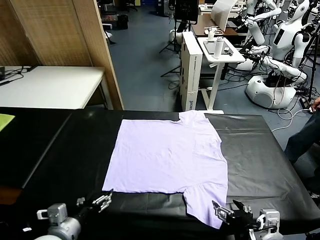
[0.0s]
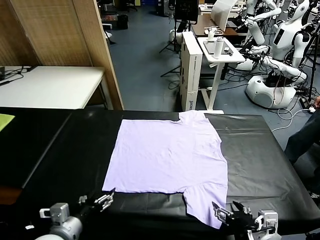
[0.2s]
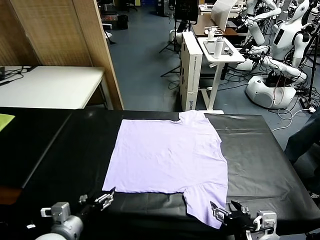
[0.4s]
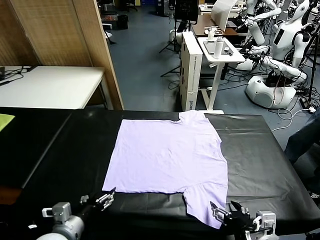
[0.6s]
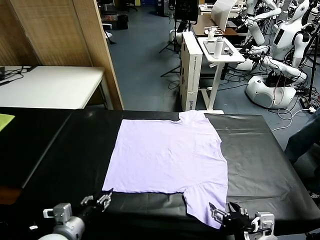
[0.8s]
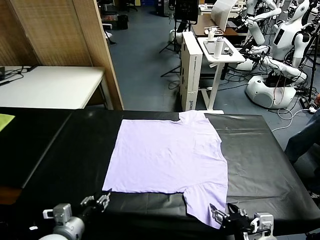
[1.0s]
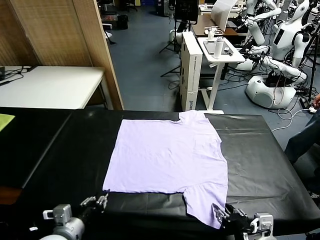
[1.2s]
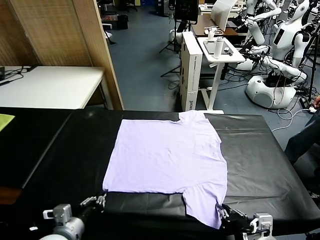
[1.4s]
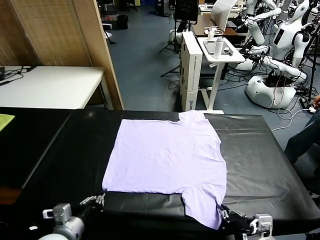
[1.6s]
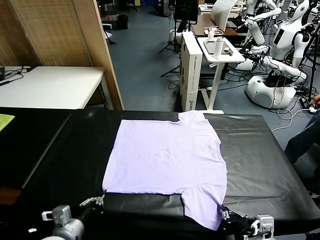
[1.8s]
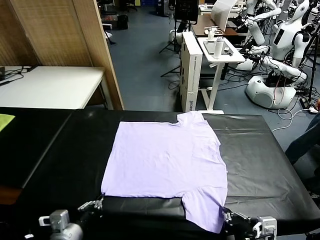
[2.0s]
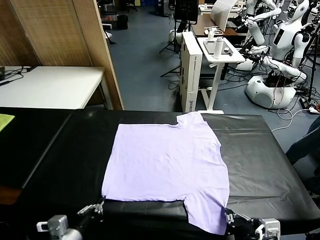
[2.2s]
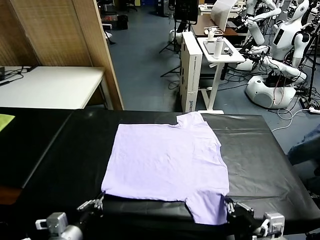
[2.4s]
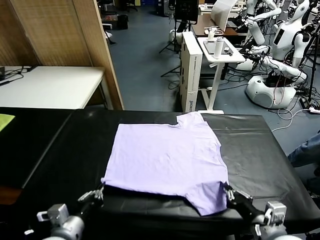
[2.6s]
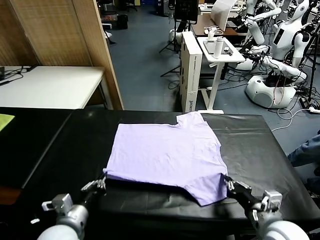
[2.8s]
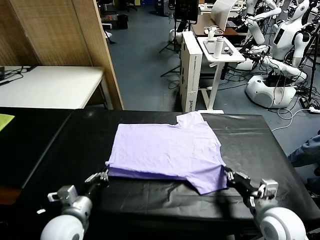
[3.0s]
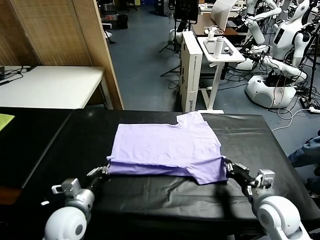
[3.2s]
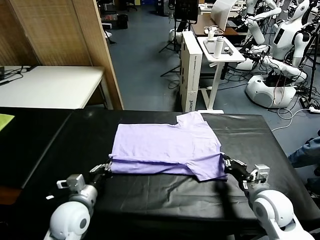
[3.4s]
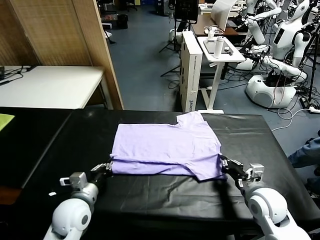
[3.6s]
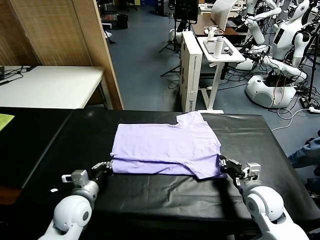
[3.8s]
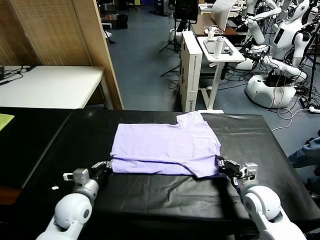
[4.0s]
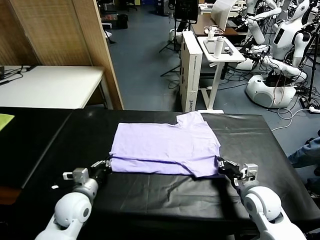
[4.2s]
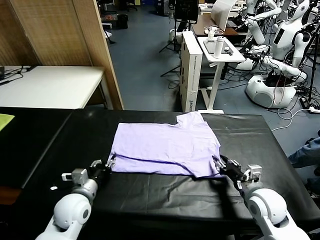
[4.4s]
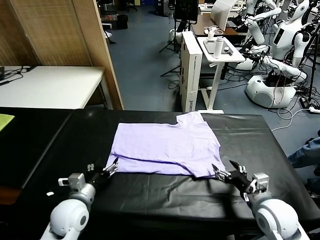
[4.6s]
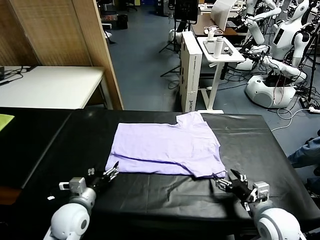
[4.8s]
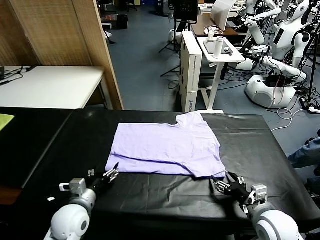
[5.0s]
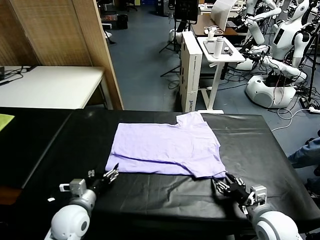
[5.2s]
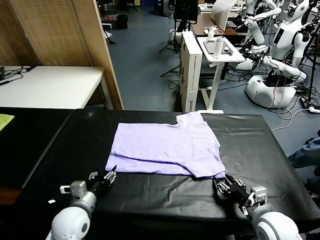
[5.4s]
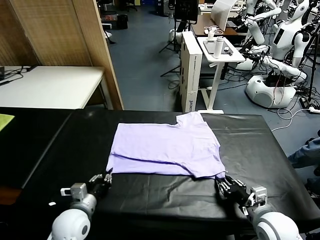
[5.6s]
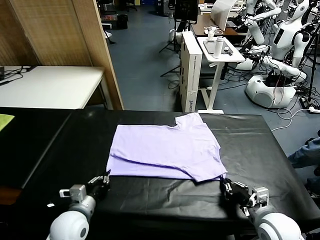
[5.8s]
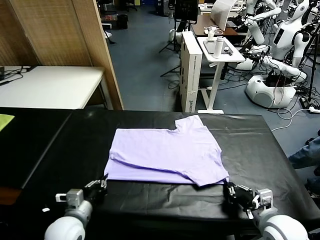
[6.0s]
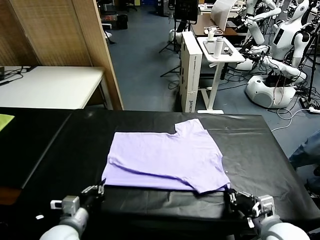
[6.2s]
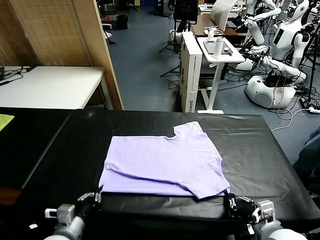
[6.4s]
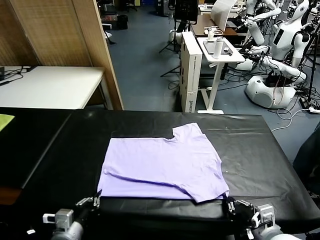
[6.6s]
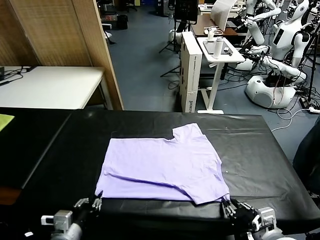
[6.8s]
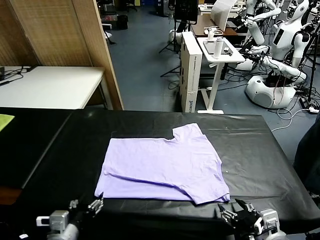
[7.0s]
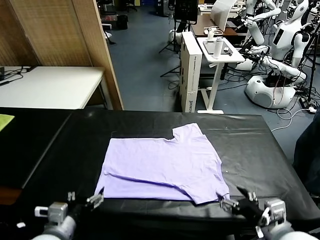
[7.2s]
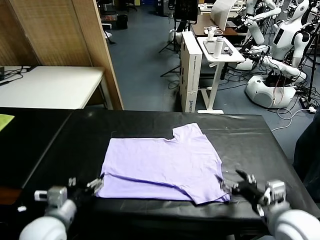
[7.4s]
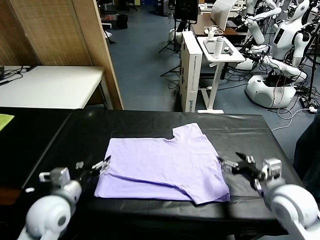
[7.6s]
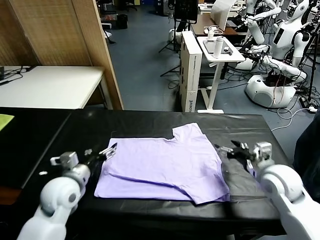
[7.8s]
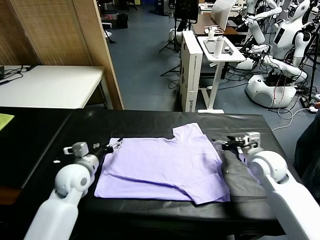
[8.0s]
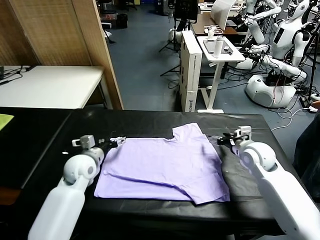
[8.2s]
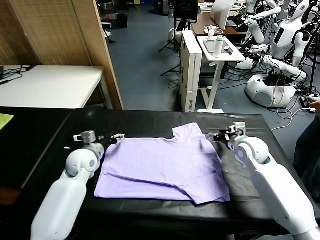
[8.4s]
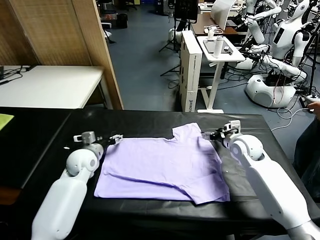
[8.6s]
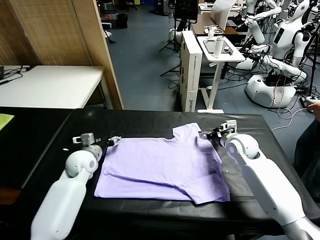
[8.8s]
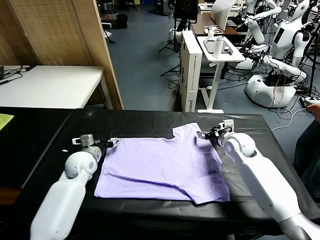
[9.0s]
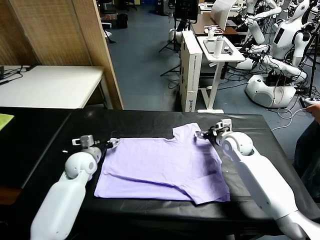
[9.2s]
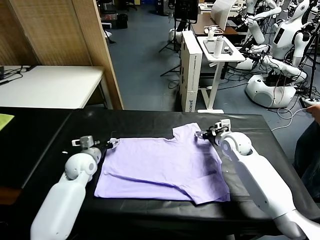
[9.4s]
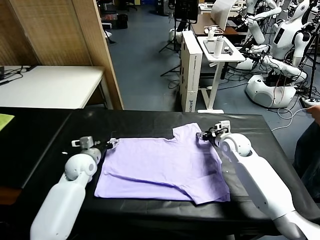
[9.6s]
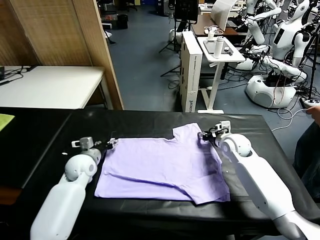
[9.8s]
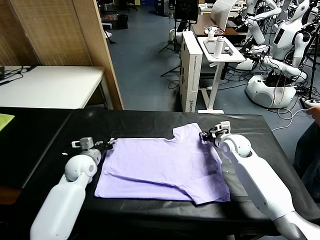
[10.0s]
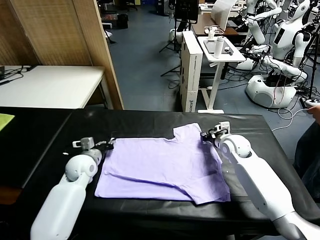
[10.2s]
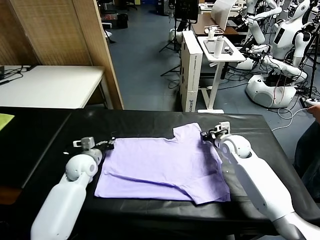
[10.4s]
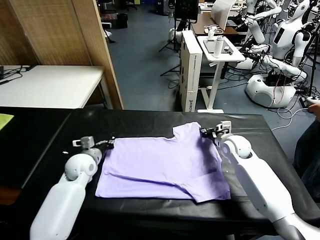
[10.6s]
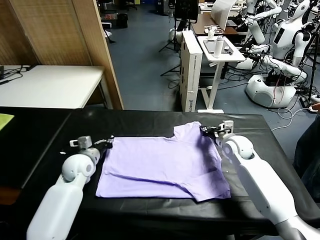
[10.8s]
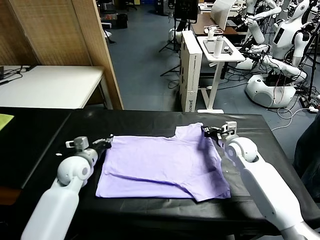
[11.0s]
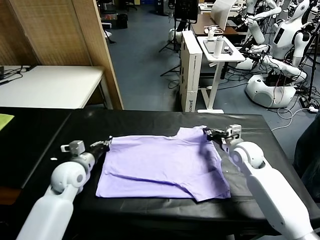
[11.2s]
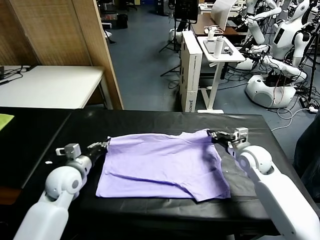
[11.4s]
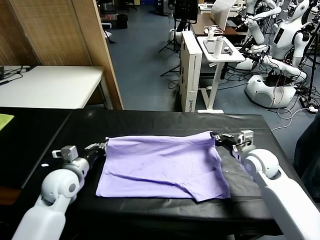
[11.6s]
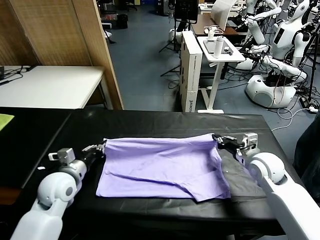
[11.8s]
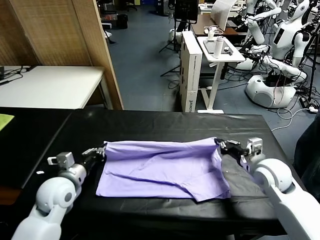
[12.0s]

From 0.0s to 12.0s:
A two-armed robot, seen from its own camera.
Task of the whole recording: fold and organize the clothes.
Step, from 0.0s to 1.8s: use both grippers simultaneously to clamp the lower edge of the clothing fabric.
Step, from 2.0s to 4.4s: use both grippers to drag the lower edge of the fabric forward and fold it over the upper edge.
Step, from 4.6s to 7.0s: Drag the clothes downward with both gripper.
Step, from 7.2s to 10.4s: use both grippers simultaneously to clamp the upper edge of the clothing fabric.
From 1.6s to 3.0s: The left gripper is displaced forward by approximately 5 cm; the right gripper shifts roughly 15 cm forward.
From 3.0s to 4.4s: The left gripper shifts about 5 cm forward, and opens up. Meanwhile the right gripper opens its fingers.
From 4.4s to 6.0s: The two grippers go roughly 5 cm backward. The left gripper closes its fingers. Meanwhile the right gripper closes its fingers.
From 6.0s to 7.6s: The left gripper goes approximately 10 cm upward, goes backward and returns, approximately 5 cm each way, and opens. Meanwhile the right gripper heads forward and upward, covering approximately 10 cm, and opens up.
From 7.6s to 9.0s: The grippers both shift forward by approximately 20 cm.
From 9.0s to 10.4s: The right gripper closes up. Meanwhile the left gripper closes.
From 10.4s to 12.0s: The right gripper is displaced backward by roughly 15 cm. The left gripper is displaced backward and upward by about 15 cm.

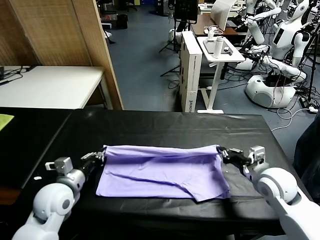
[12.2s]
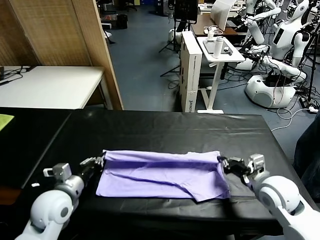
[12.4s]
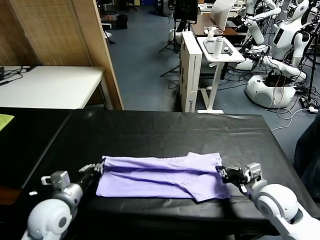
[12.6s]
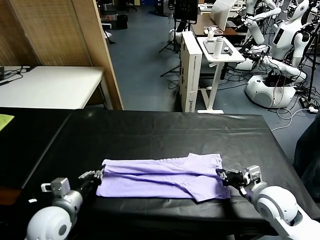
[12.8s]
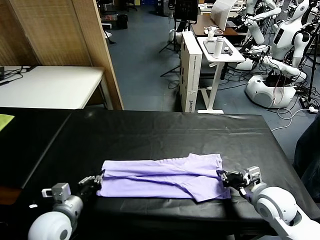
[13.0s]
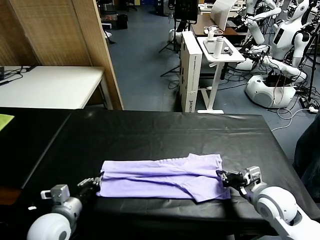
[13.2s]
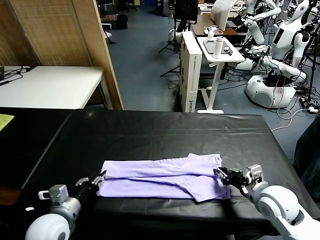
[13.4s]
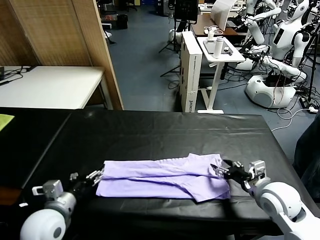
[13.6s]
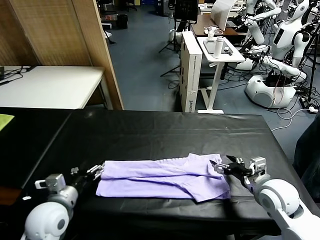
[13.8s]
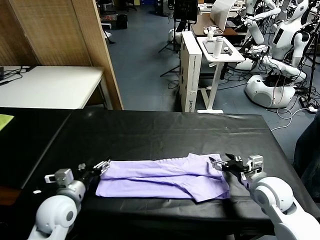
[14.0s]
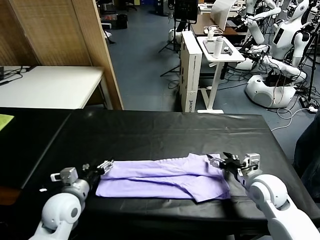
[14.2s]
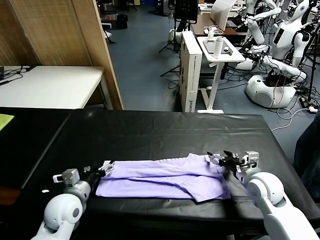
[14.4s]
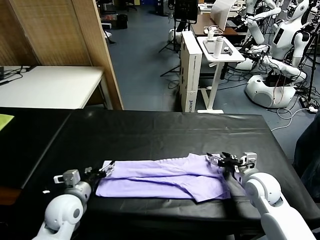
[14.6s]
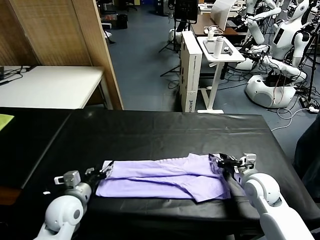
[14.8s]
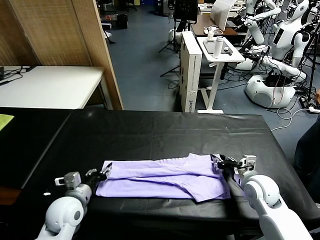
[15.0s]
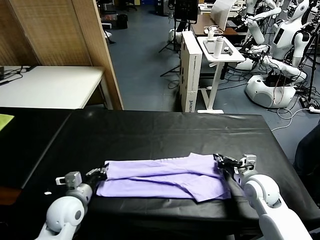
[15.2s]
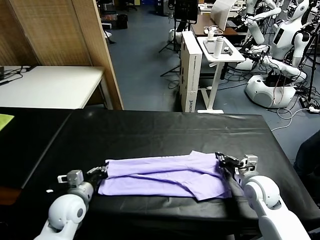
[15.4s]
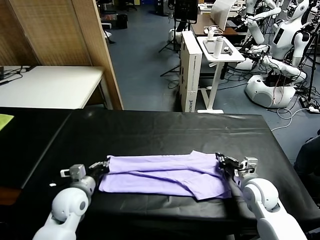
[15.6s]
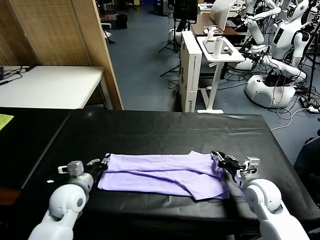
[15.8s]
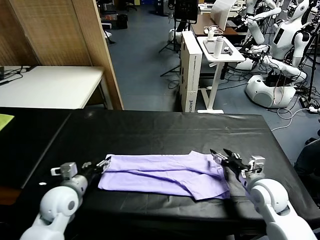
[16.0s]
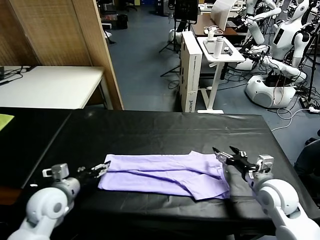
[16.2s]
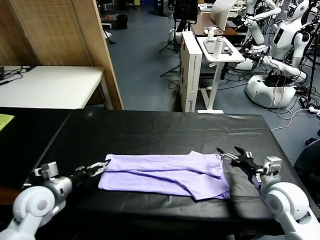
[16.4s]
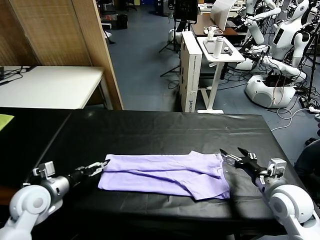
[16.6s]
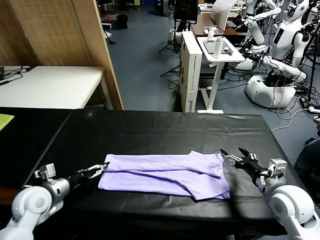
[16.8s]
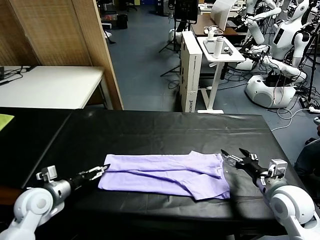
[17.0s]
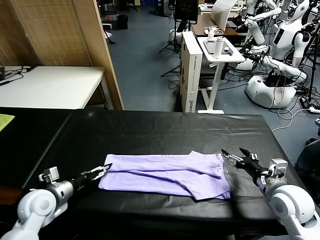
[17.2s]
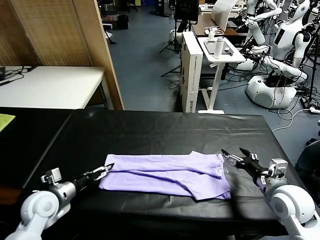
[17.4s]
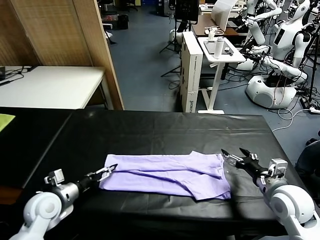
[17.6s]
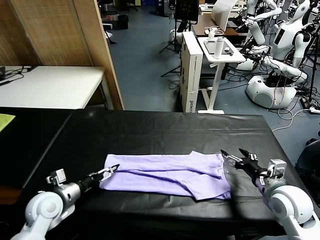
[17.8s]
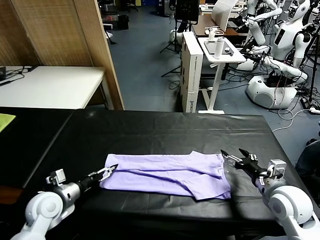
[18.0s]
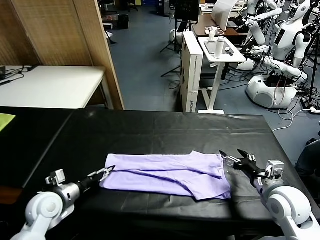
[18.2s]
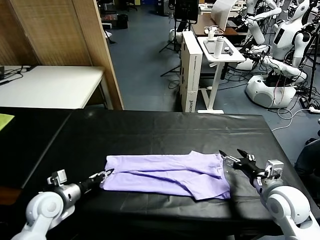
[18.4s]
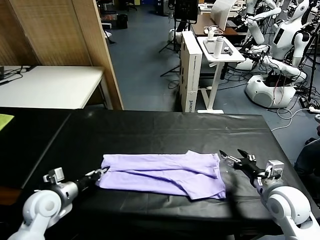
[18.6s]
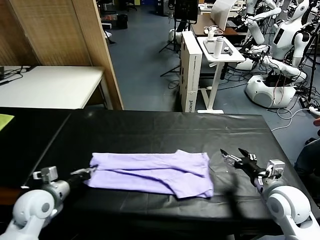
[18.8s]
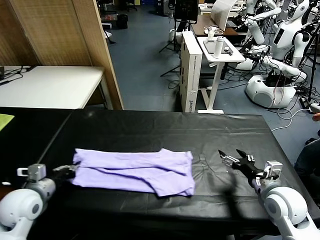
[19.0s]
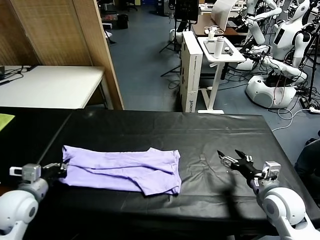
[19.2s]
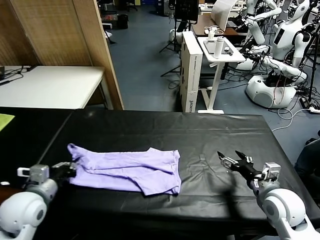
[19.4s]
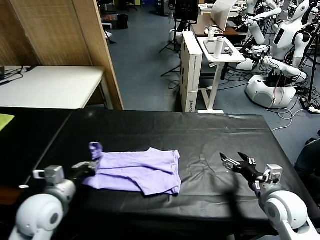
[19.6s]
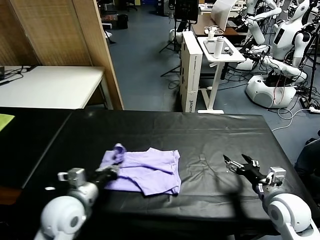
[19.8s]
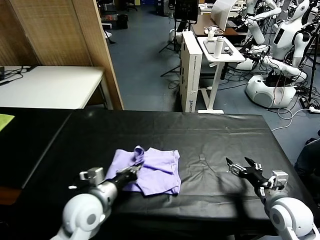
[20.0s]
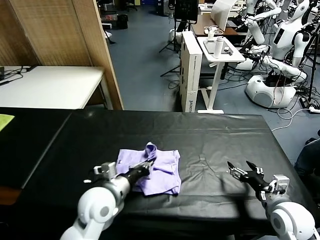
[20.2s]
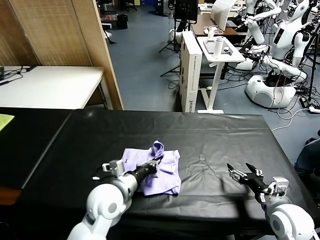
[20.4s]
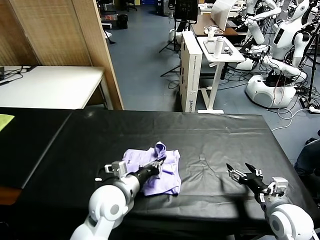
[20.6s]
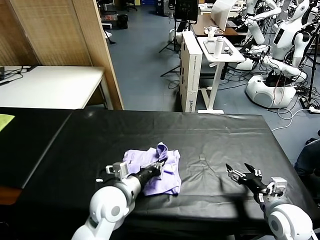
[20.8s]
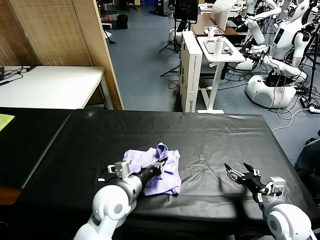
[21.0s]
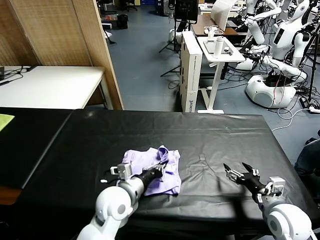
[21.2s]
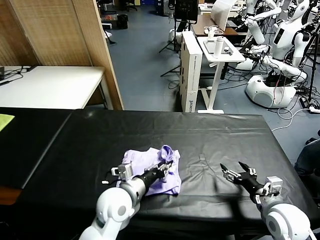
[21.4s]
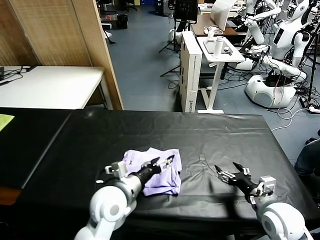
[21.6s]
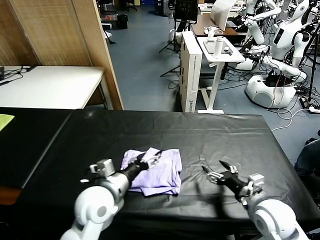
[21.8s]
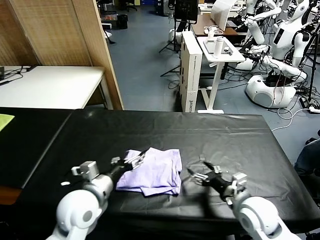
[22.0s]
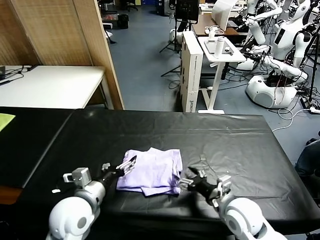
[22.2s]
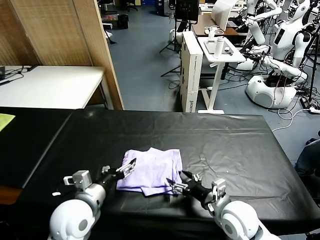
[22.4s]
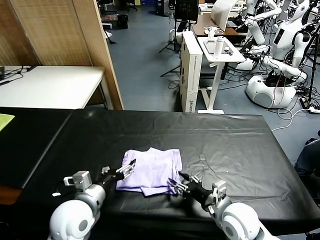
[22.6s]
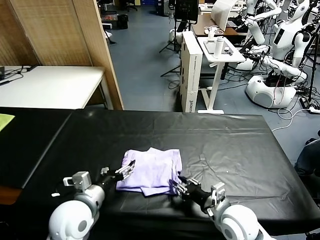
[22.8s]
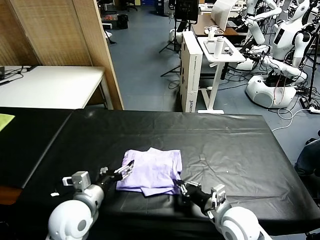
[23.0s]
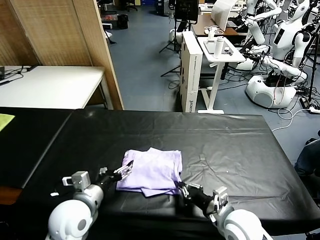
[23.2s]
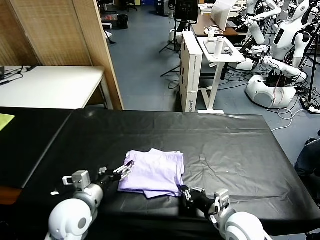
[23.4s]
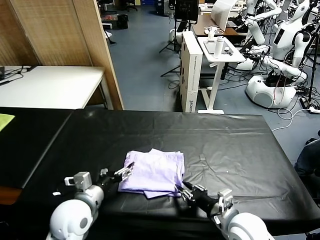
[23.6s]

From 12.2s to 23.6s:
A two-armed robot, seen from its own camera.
Task of the whole recording: fold and organize the clothes.
Step, from 13.8s to 18.6s: use the left gripper to clamp the left edge of the fabric.
Step, from 18.8s to 21.6s: use the left gripper to drag the left edge of the fabric to the left and folds it over the right edge.
From 12.2s to 13.6s: The right gripper opens up; the left gripper travels backward by about 5 cm, and opens its fingers.
From 13.6s to 15.0s: The left gripper heads forward, covering some 5 cm, and closes its fingers. The right gripper travels downward by approximately 5 cm, and closes.
From 15.0s to 16.4s: The right gripper goes approximately 10 cm upward and backward, and opens. The left gripper goes roughly 10 cm to the left and upward, and opens.
From 16.4s to 17.8s: The left gripper shifts roughly 5 cm downward.
From 17.8s to 19.4s: The left gripper is displaced upward by roughly 5 cm, and closes up.
From 19.4s to 20.8s: The left gripper moves to the right, approximately 20 cm.
From 20.8s to 22.2s: The right gripper shifts approximately 10 cm to the left. The left gripper is displaced to the left by some 10 cm, and opens up.
From 22.2s to 23.6s: The right gripper closes its fingers.
